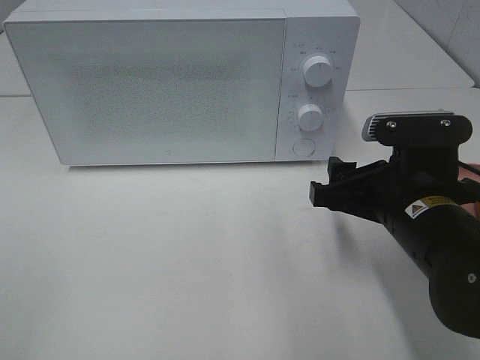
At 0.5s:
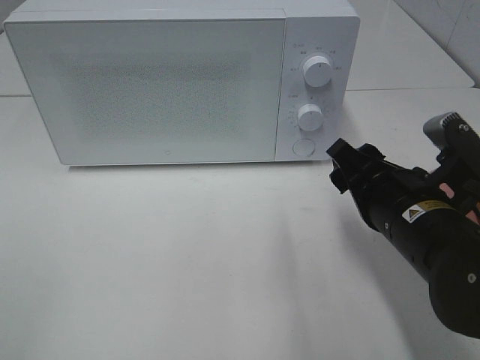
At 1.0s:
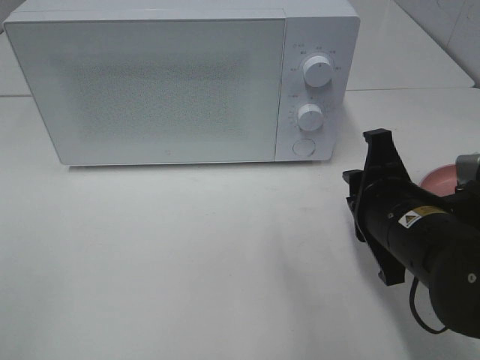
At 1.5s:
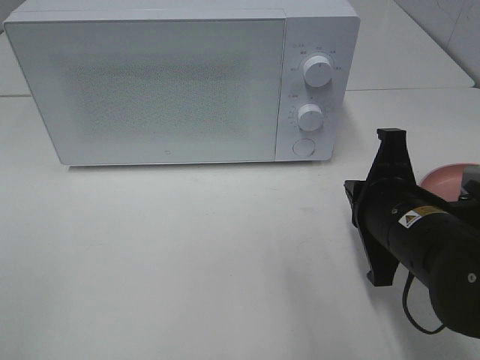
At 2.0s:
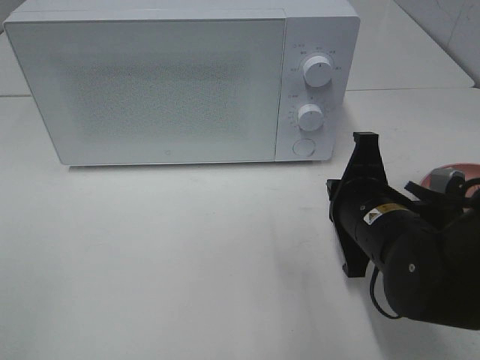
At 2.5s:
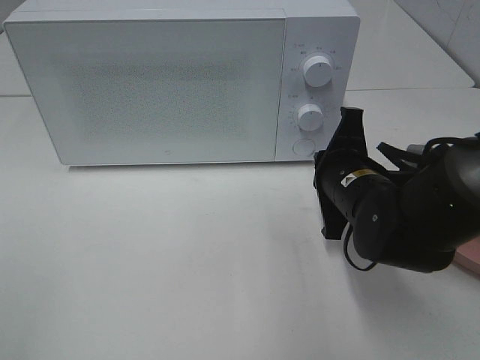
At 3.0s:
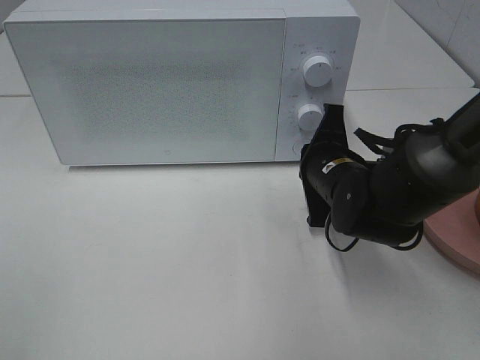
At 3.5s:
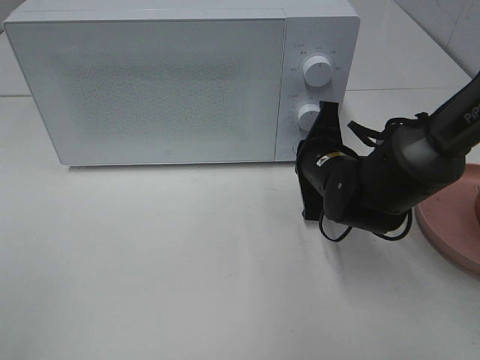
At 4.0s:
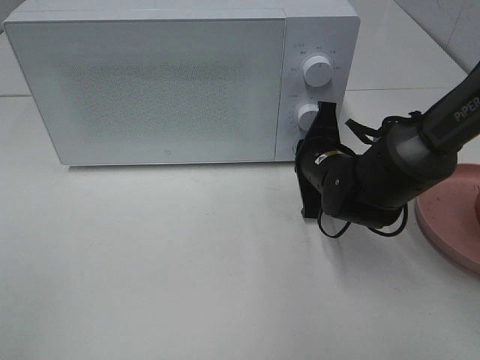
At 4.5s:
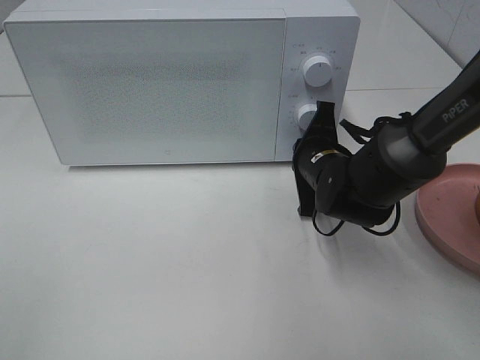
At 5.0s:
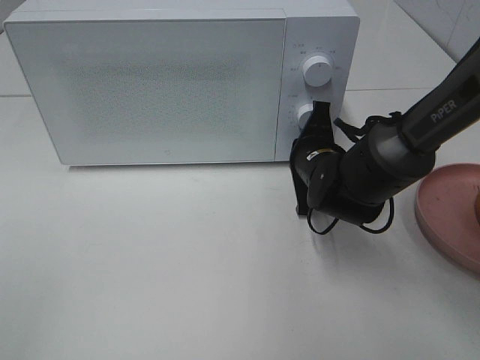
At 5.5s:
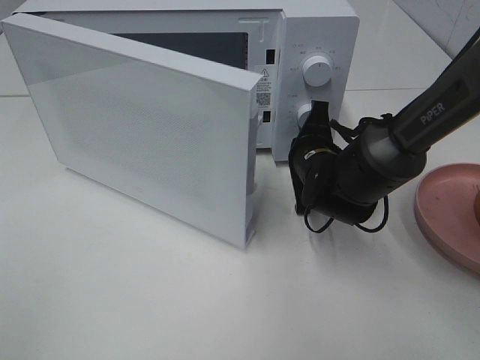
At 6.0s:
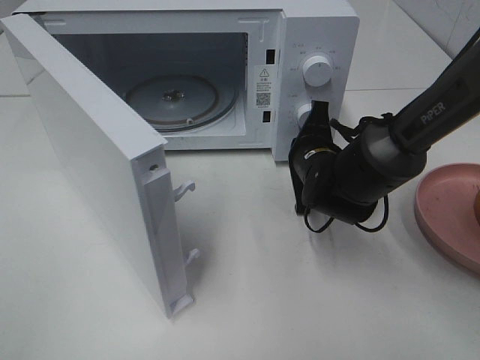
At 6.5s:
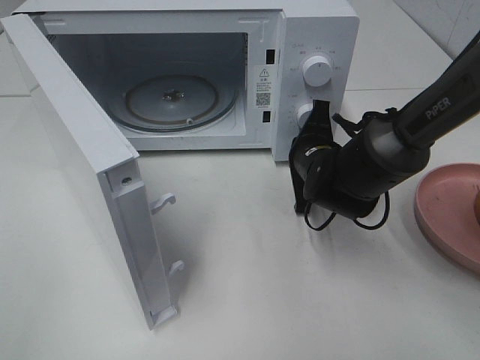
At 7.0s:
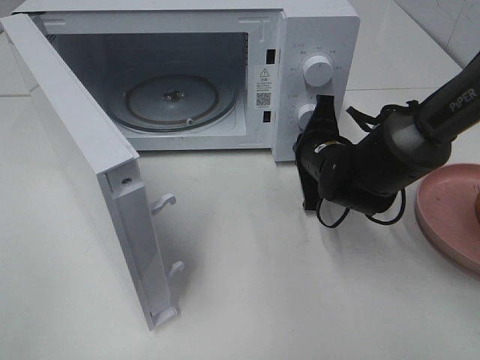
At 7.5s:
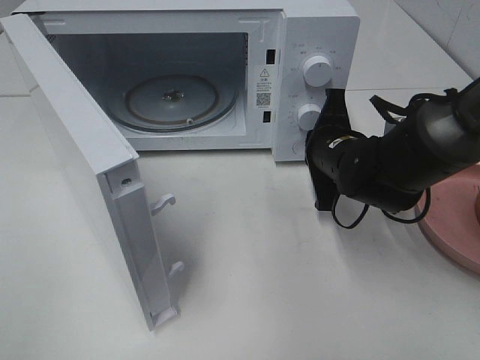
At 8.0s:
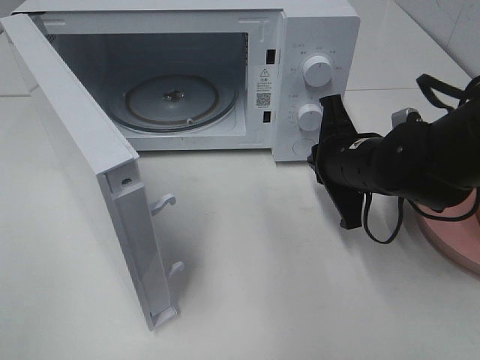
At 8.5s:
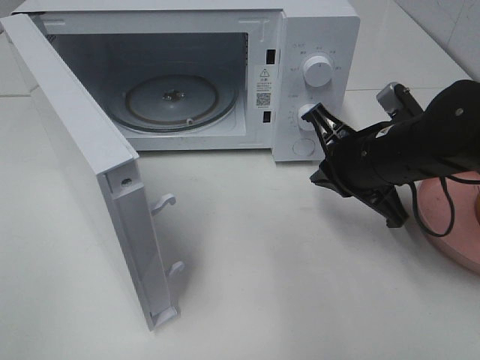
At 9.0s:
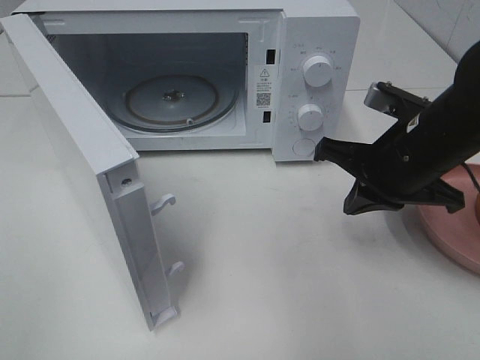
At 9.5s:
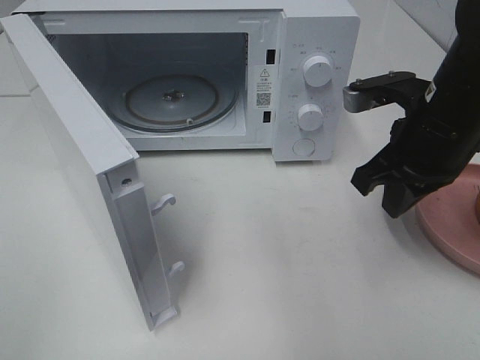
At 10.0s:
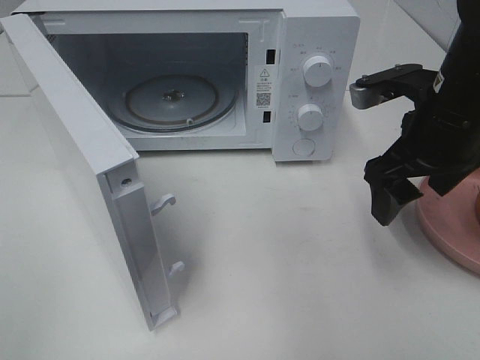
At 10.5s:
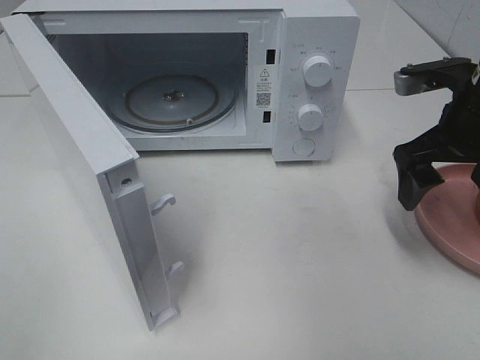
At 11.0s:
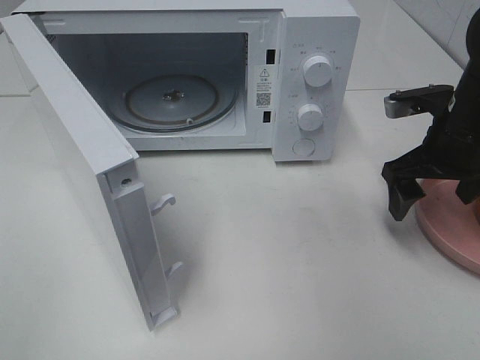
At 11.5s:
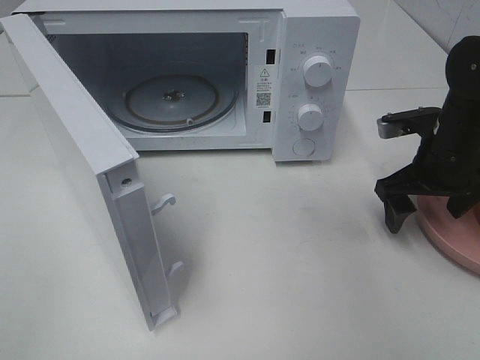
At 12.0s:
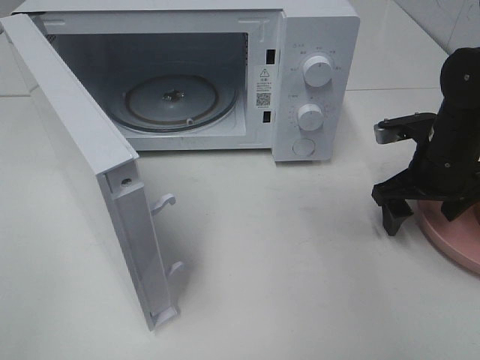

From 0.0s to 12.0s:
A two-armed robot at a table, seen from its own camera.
Task of the whole recording: Heat the burger.
Step, from 0.0s to 7.5s: Right hand: press the switch.
From 0.0s to 2.0s: The right gripper closes up.
From 2.0s to 4.0s: The right gripper is displaced forward by about 10 cm.
From 6.0s to 8.0s: The right gripper is displaced backward and upward by roughly 10 cm.
From 8.0s to 10.0s: The right gripper is displaced upward by about 10 cm, and opens up.
From 10.0s to 12.0s: The right gripper shifts approximately 15 cm downward, to the right and forward.

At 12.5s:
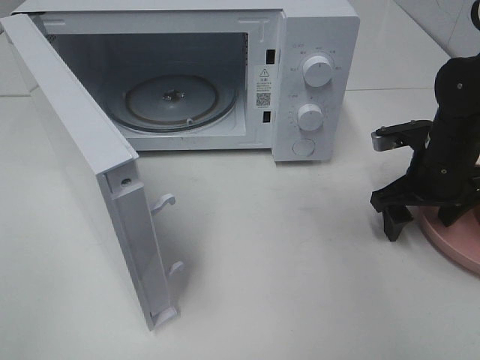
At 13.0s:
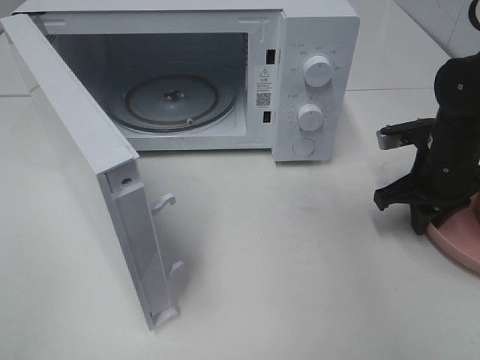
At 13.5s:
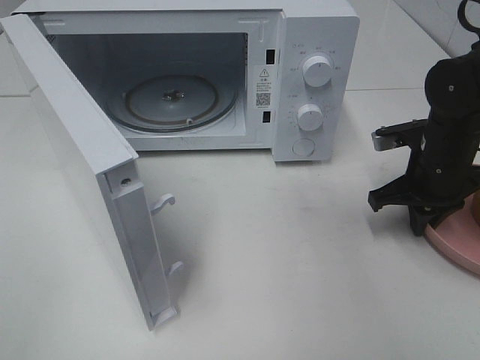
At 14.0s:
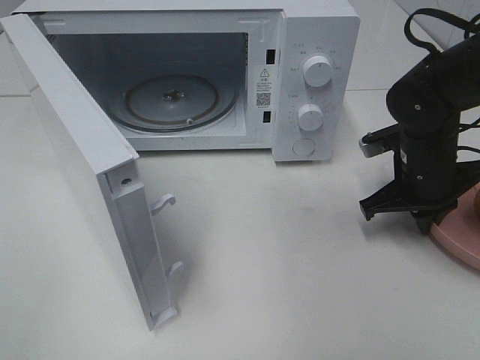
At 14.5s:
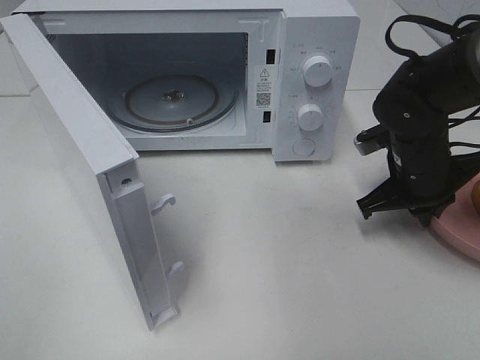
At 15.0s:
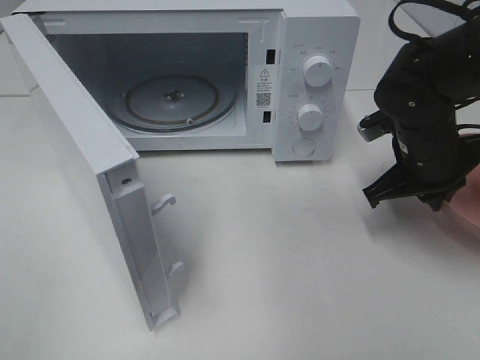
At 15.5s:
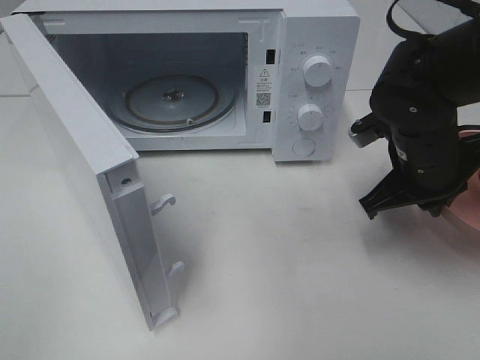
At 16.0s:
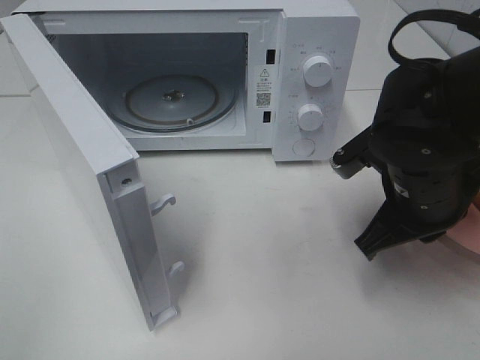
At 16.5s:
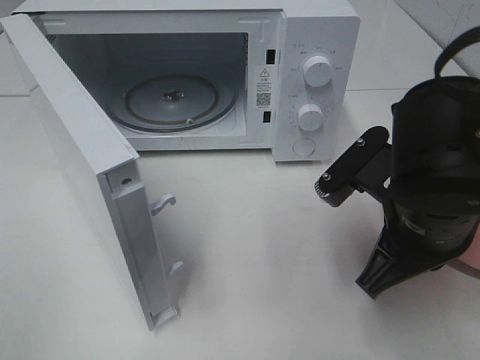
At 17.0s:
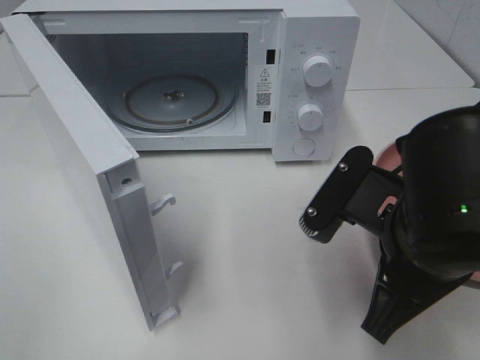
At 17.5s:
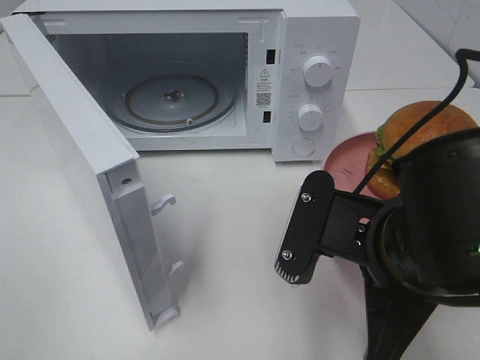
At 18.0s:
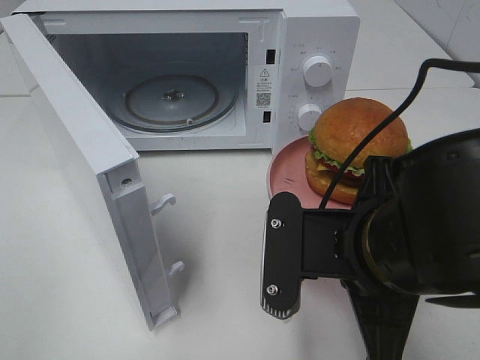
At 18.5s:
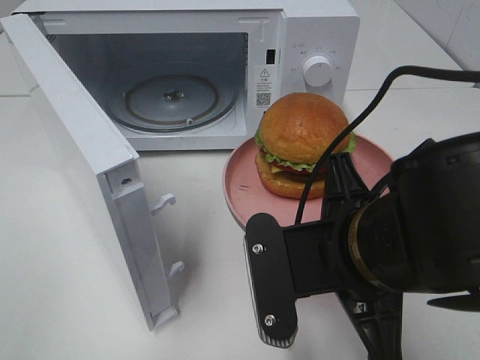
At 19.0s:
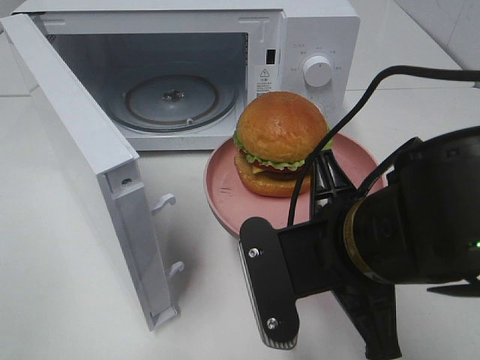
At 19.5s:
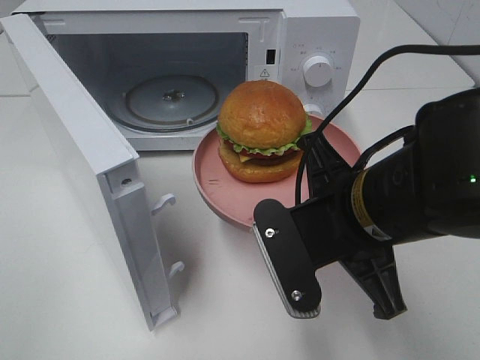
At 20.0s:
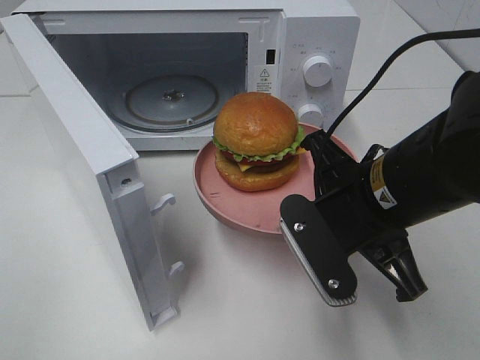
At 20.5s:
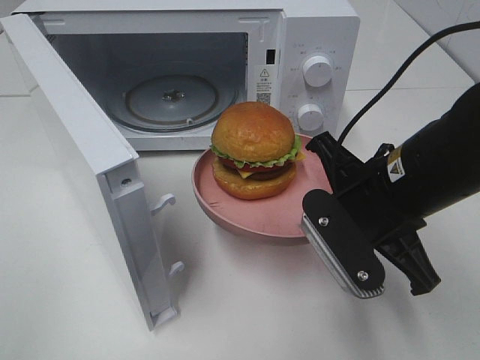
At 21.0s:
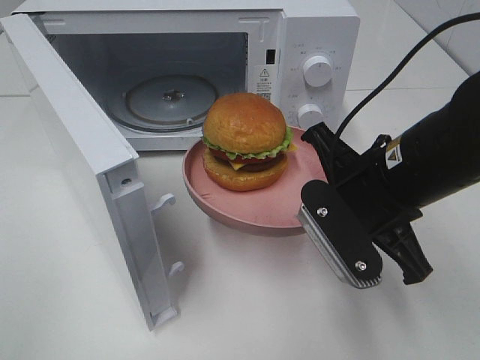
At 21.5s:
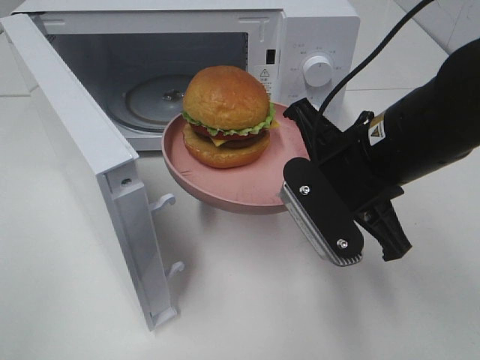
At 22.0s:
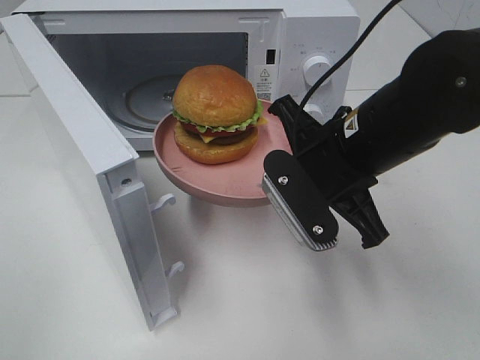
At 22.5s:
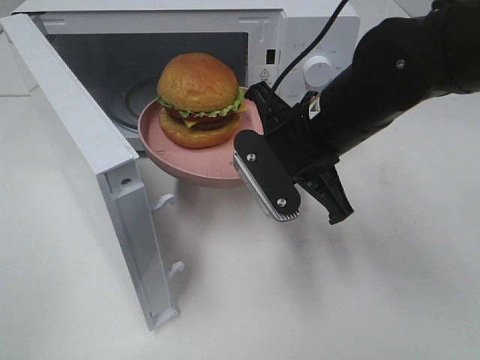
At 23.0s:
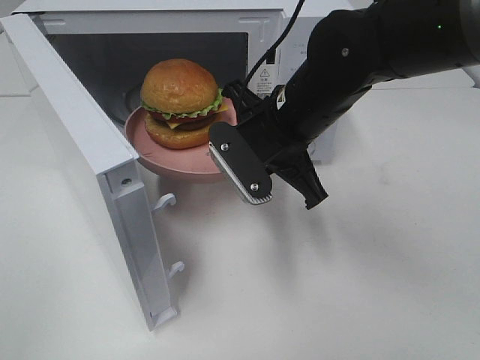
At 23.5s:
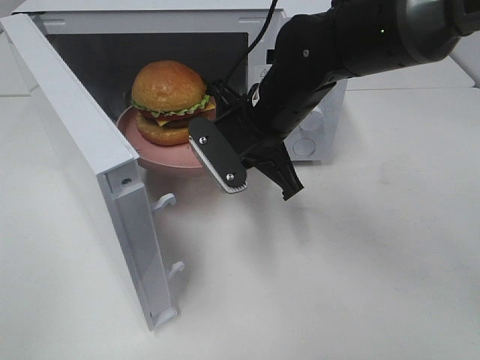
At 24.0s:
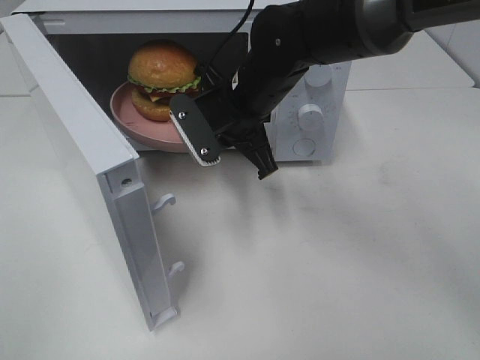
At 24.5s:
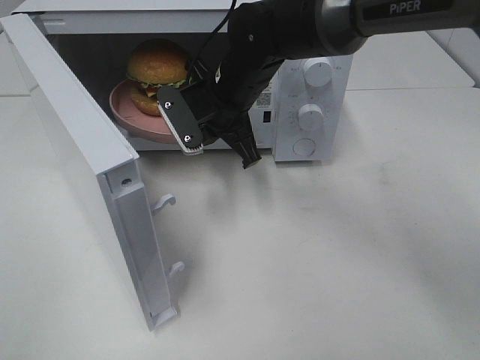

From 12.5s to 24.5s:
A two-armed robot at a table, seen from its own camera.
Task of the whole recording: Heat the burger.
From 12.5s to 14.5s: The right gripper closes up.
From 14.5s to 16.5s: The right gripper heads backward, to the left and upward, covering approximately 15 cm.
From 16.5s to 18.5s: The right gripper goes some 5 cm to the left.
From 18.5s to 20.5s: The right gripper heads forward, covering about 5 cm.
From 20.5s to 22.5s: The right gripper moves forward and to the left, some 10 cm.
From 22.5s to 24.5s: The right gripper goes some 15 cm forward and to the left.

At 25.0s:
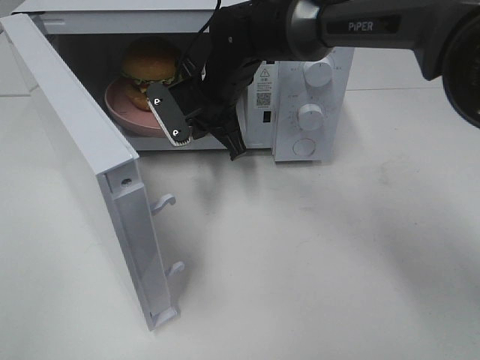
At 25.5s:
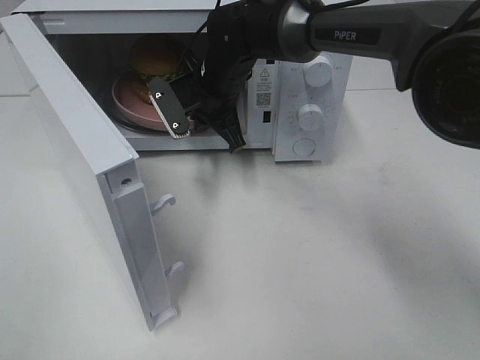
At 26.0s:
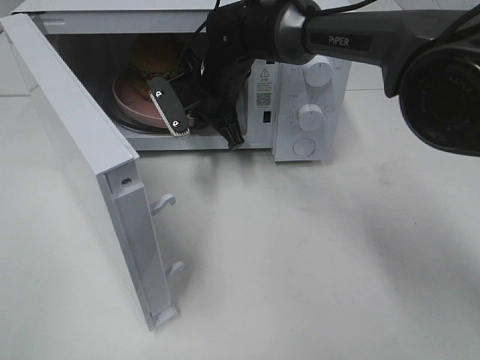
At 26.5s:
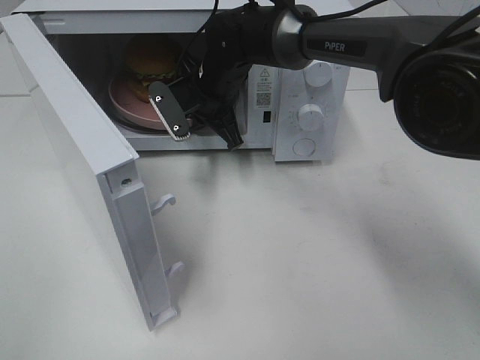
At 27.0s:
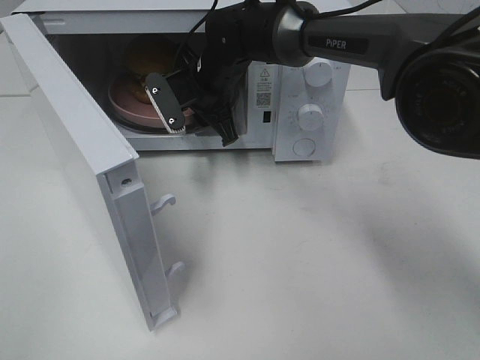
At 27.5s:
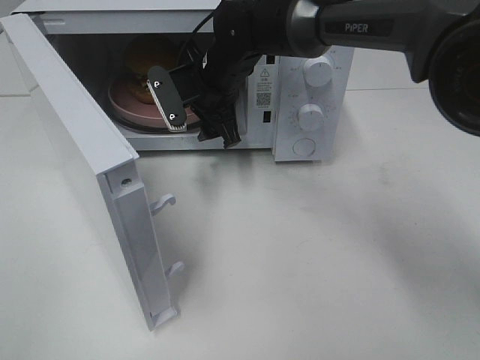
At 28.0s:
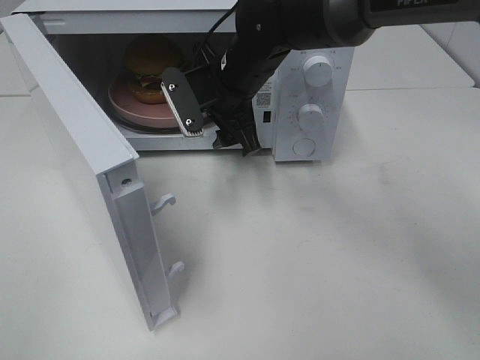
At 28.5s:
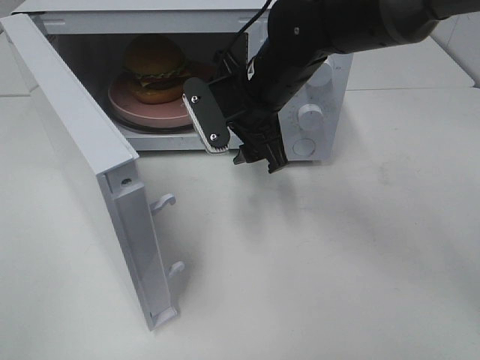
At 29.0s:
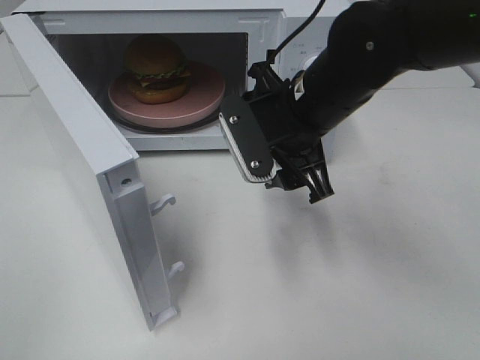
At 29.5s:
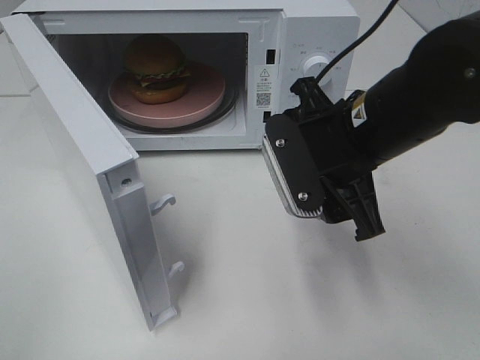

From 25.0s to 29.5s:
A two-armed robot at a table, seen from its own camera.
Task of the whole recording: Heat the burger.
Step, from 25.0s to 27.0s: Right hand: place the plate in the microwave.
From 25.0s to 27.0s: The right gripper opens.
From 27.0s to 29.5s: The right gripper travels backward and to the right by roughly 25 cm.
